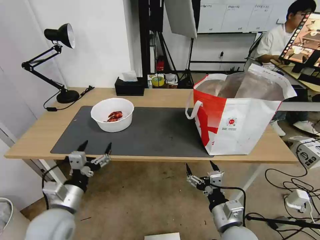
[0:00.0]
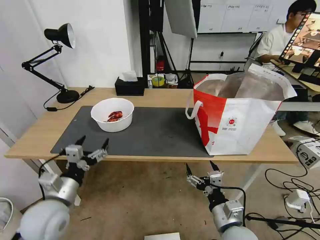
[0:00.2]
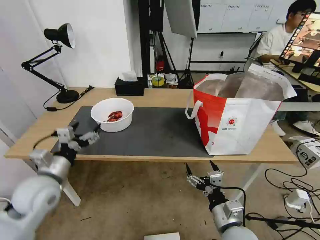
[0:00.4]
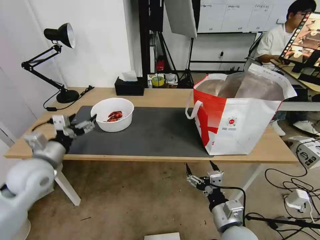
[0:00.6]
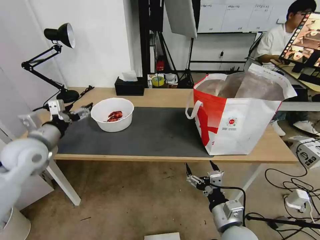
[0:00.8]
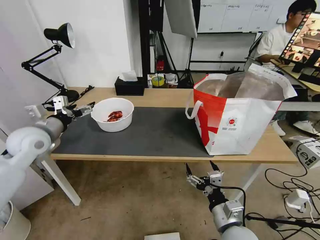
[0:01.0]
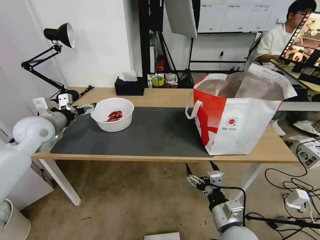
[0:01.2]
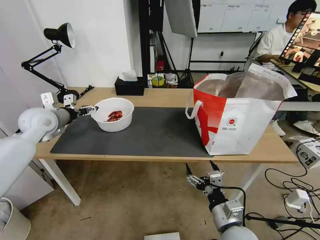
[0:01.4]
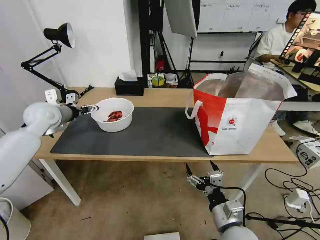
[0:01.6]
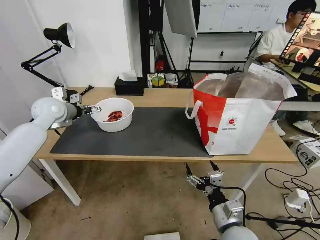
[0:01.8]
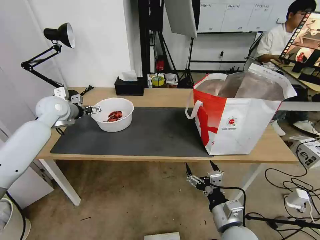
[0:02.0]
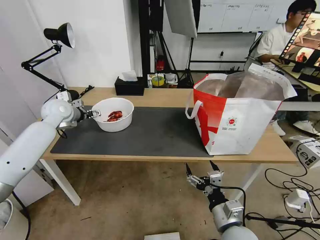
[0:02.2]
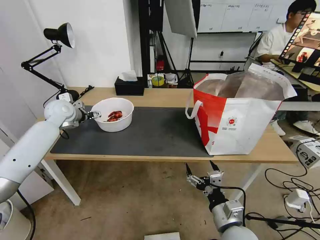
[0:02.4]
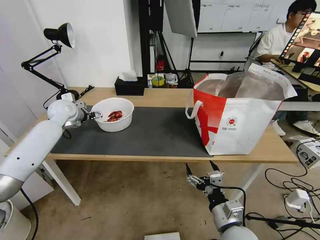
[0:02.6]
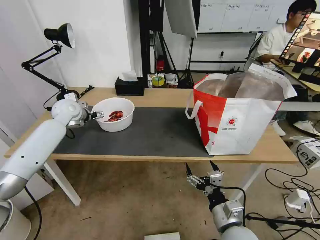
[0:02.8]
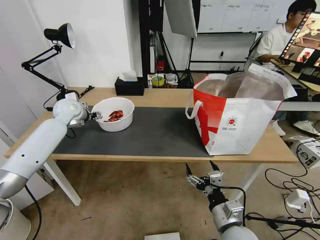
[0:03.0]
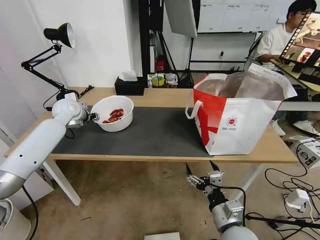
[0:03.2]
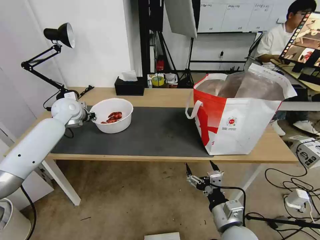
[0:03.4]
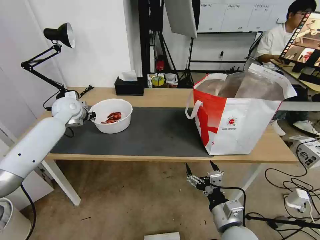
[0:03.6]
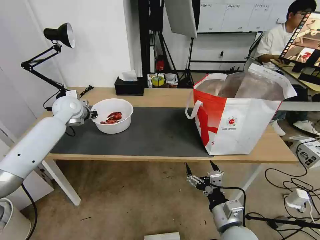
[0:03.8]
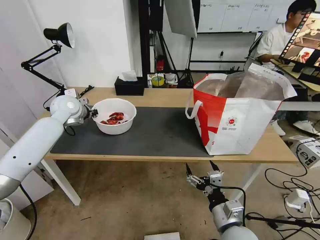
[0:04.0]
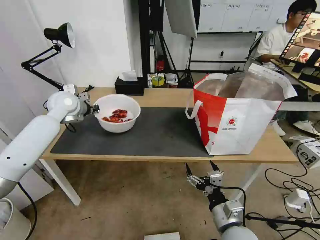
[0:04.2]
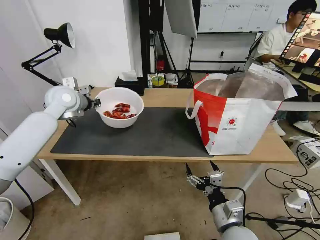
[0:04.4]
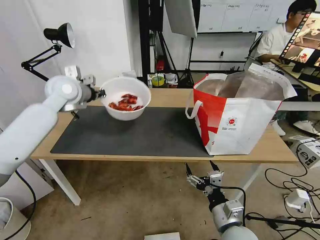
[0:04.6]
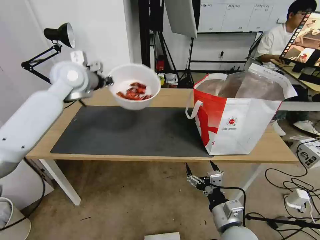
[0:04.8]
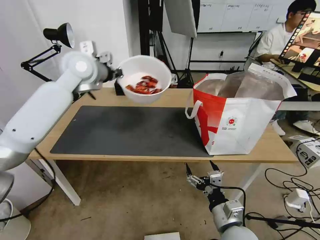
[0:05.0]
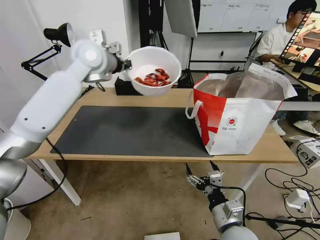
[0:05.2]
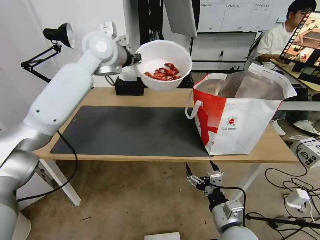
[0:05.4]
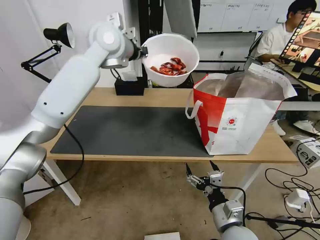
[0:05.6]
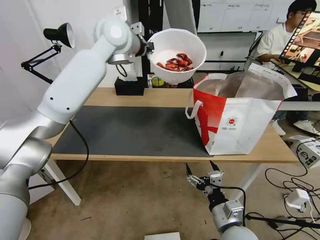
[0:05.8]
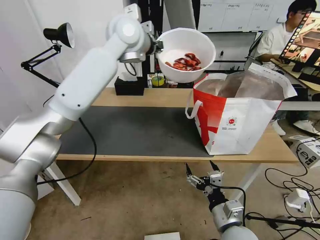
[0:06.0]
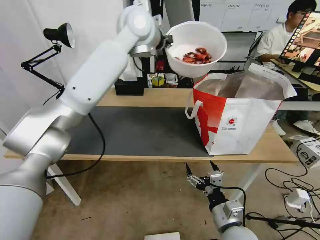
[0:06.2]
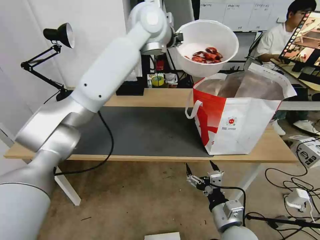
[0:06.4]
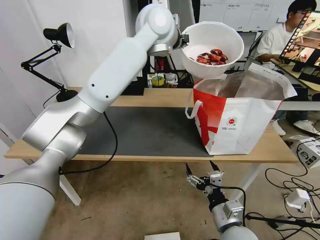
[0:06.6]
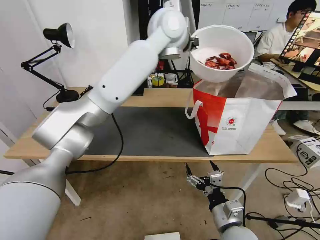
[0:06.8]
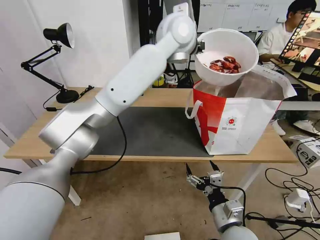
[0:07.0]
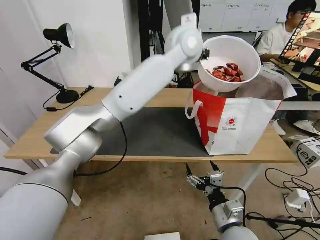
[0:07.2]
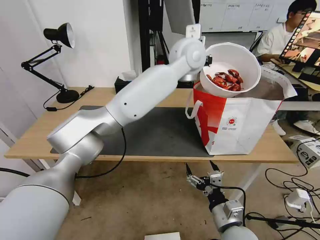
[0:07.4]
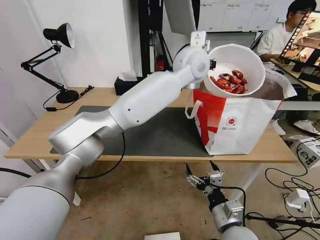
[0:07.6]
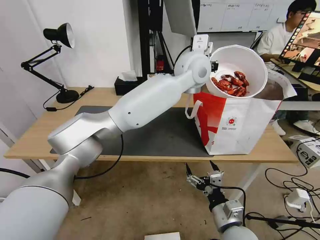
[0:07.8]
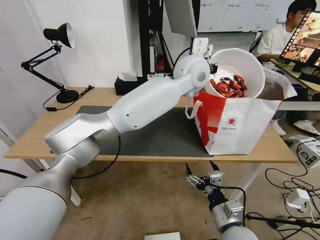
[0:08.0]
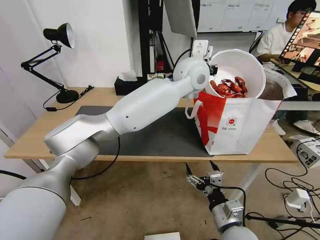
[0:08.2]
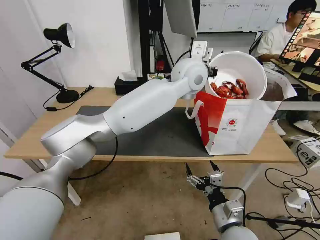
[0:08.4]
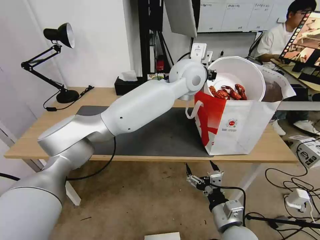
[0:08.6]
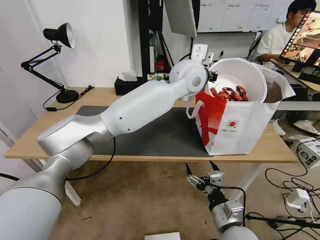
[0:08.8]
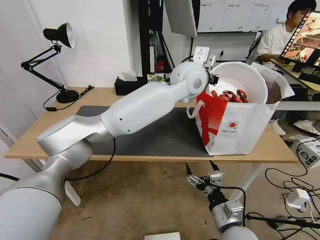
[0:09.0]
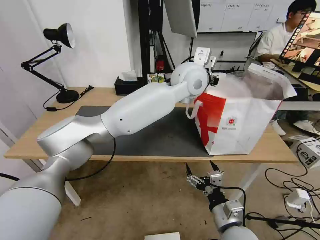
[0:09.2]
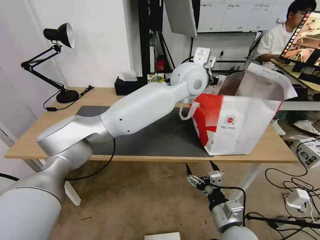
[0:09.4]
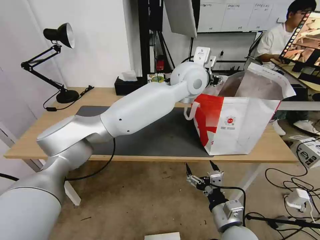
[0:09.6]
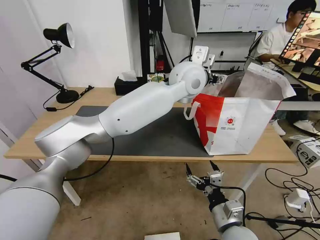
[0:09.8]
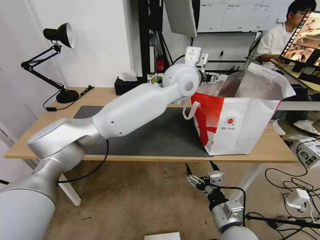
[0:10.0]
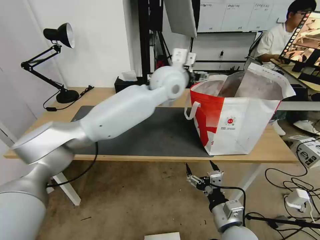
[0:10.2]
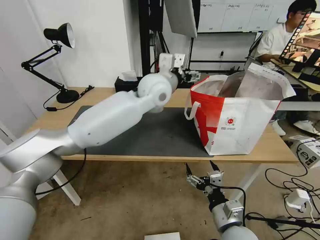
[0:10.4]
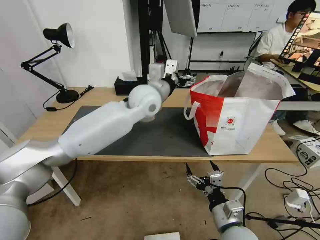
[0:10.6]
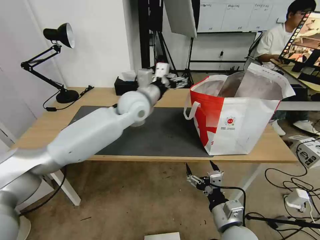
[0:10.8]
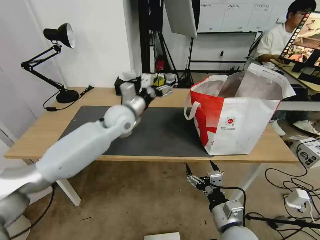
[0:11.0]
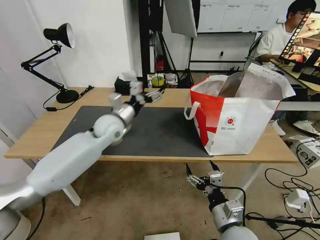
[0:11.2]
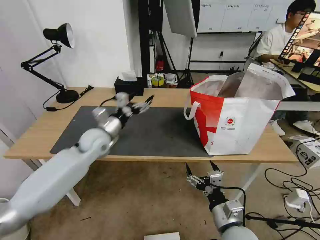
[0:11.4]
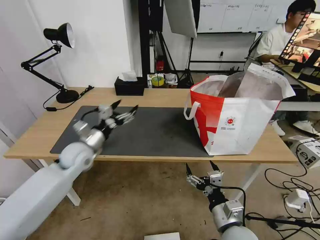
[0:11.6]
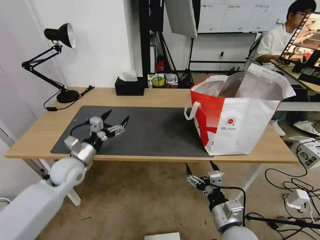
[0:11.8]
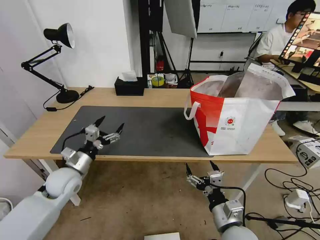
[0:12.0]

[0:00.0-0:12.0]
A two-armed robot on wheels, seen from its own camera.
Task of the whole recording: Pick up the trash from the table and place it into the takeout bag.
0:00.0 to 0:01.6: The left gripper shifts approximately 30 cm forward and upward.
0:01.6 to 0:03.0: The left gripper shifts some 5 cm forward.
0:03.0 to 0:04.4: The left gripper goes roughly 5 cm upward, and closes its fingers.
0:04.4 to 0:06.0: The left gripper heads to the right and upward, covering some 30 cm.
0:06.0 to 0:07.6: The left gripper goes about 20 cm to the right.
0:07.6 to 0:09.0: The grippers stay close to where they were, moving slightly.
0:09.0 to 0:10.4: The left gripper goes some 10 cm to the left, and opens its fingers.
0:10.4 to 0:12.0: The left gripper moves to the left, downward and backward, some 40 cm.

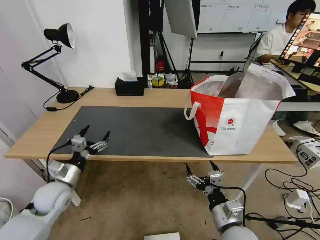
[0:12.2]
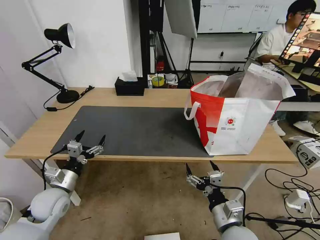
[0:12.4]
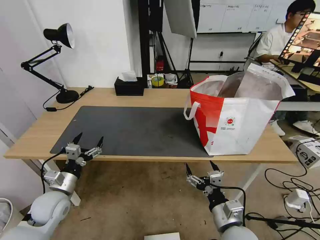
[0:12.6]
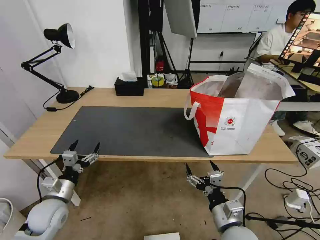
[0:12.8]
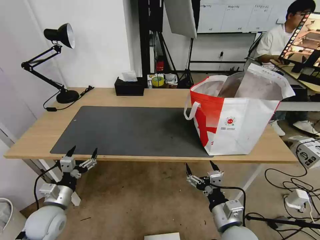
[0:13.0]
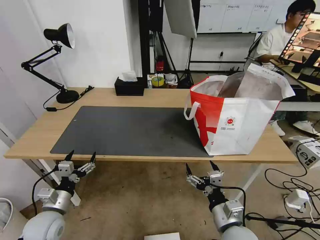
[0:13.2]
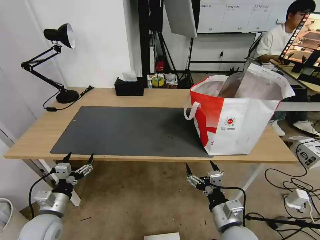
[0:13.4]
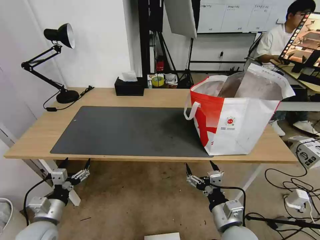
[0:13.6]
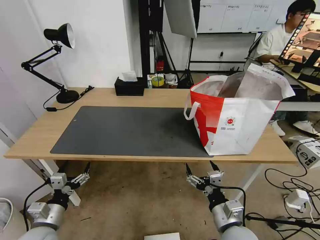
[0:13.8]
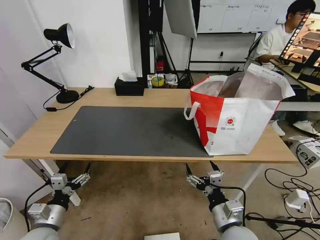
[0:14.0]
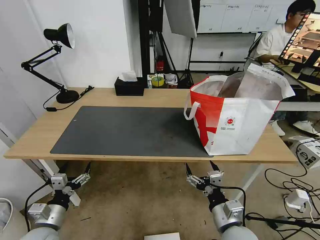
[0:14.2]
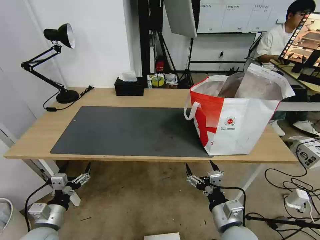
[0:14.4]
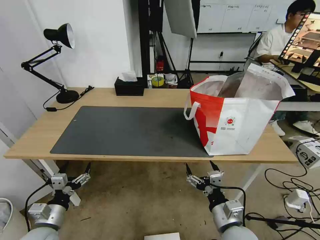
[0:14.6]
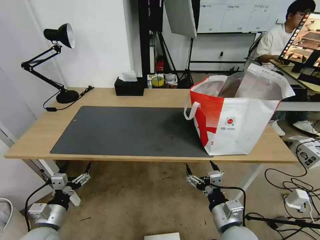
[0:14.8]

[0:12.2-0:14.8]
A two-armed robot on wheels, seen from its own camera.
Task of the whole recording: Pick up the trash from the table and place it into the takeout bag.
0:12.2 to 0:13.4: The left gripper moves backward, approximately 10 cm.
0:13.4 to 0:14.8: The grippers make only small movements.

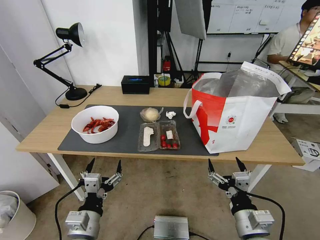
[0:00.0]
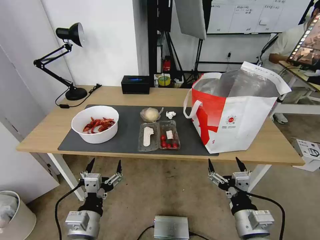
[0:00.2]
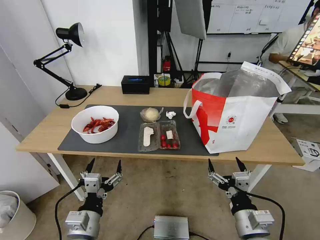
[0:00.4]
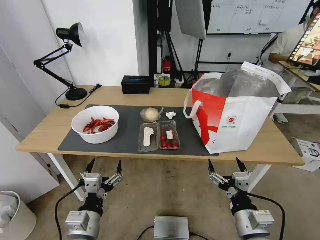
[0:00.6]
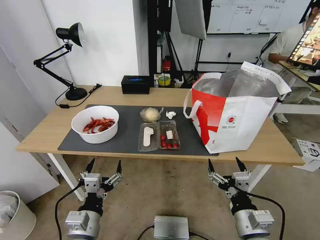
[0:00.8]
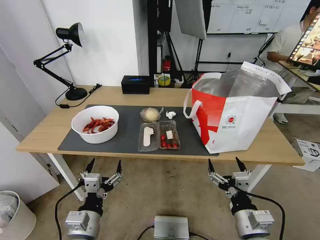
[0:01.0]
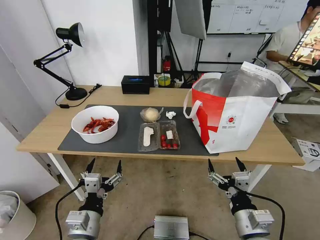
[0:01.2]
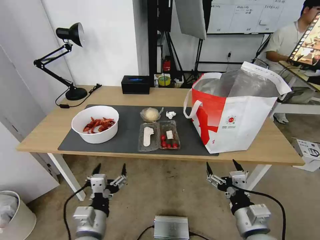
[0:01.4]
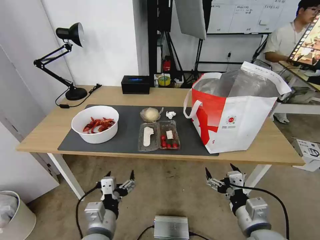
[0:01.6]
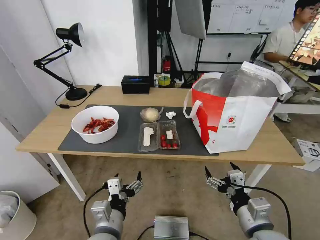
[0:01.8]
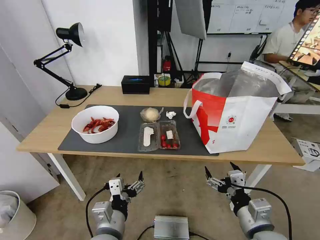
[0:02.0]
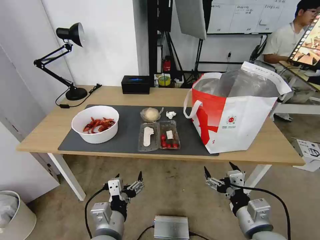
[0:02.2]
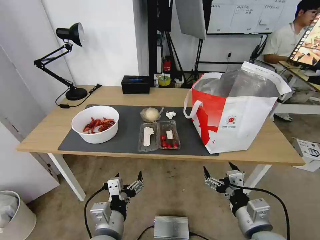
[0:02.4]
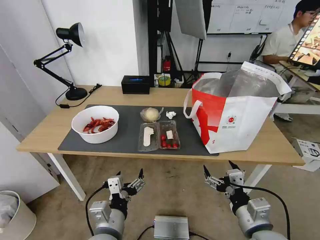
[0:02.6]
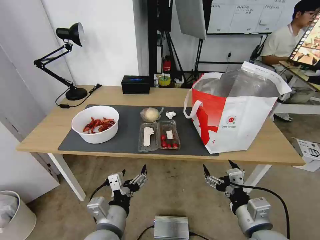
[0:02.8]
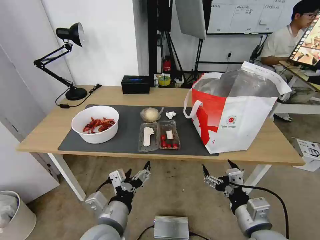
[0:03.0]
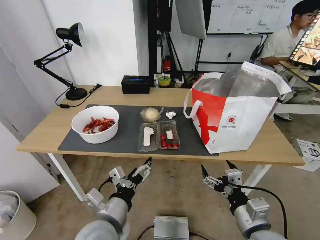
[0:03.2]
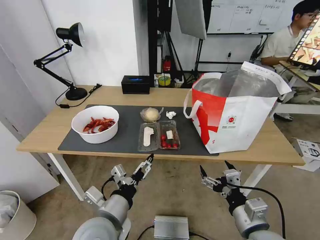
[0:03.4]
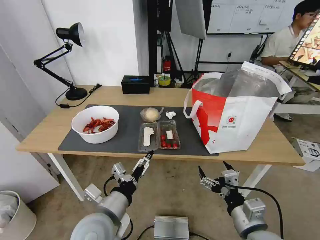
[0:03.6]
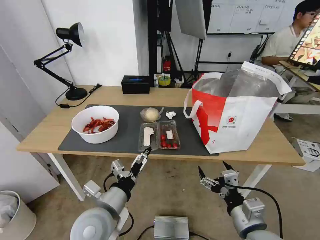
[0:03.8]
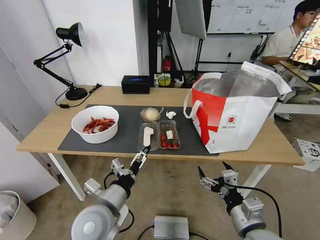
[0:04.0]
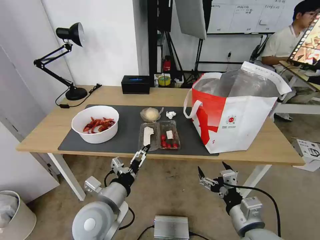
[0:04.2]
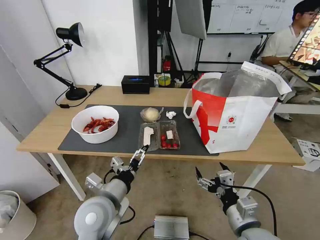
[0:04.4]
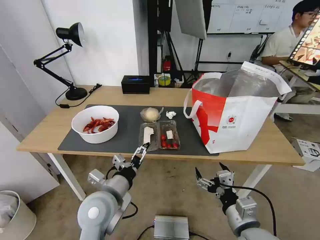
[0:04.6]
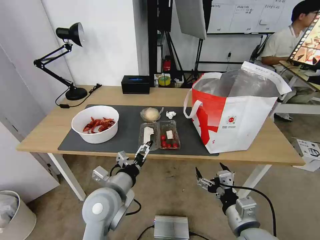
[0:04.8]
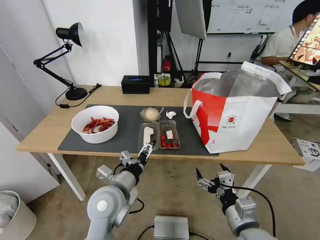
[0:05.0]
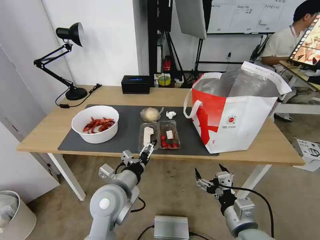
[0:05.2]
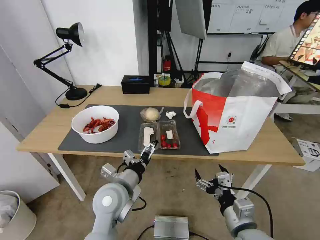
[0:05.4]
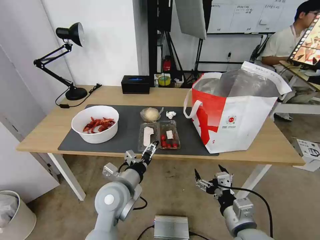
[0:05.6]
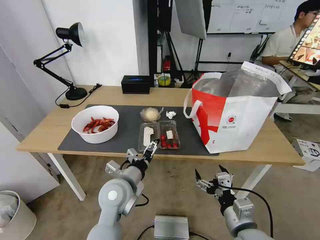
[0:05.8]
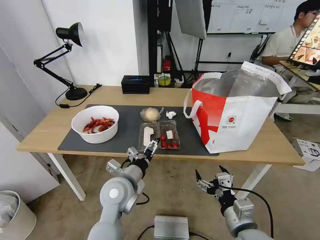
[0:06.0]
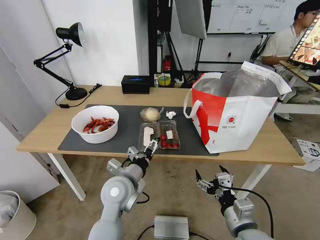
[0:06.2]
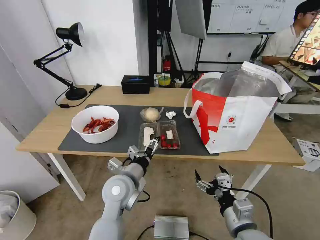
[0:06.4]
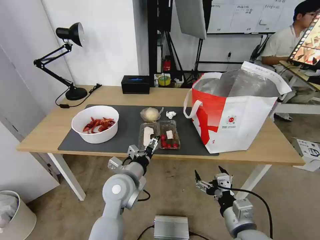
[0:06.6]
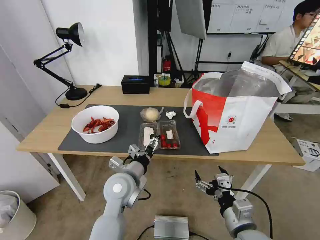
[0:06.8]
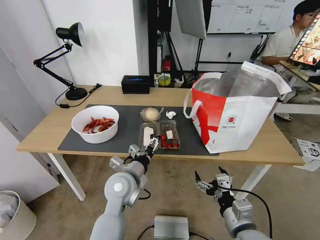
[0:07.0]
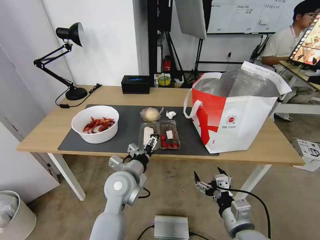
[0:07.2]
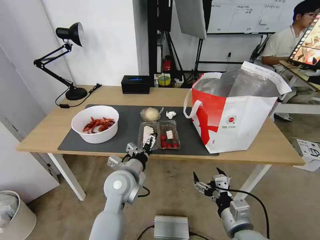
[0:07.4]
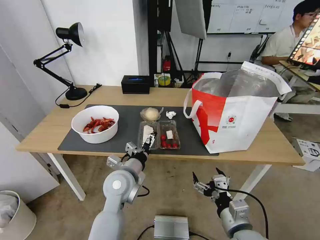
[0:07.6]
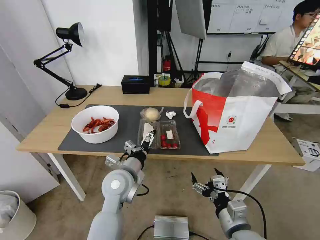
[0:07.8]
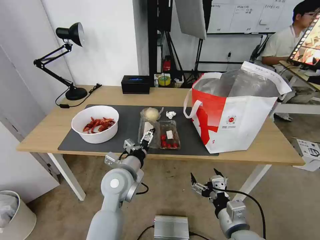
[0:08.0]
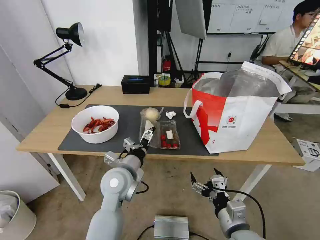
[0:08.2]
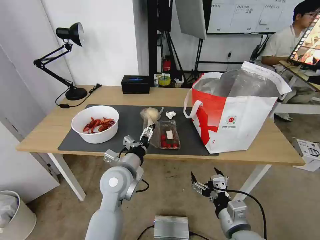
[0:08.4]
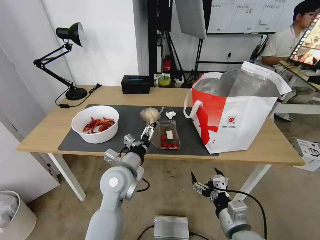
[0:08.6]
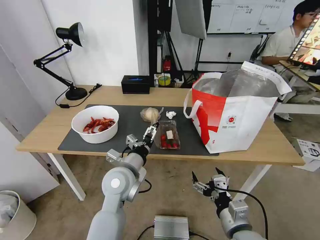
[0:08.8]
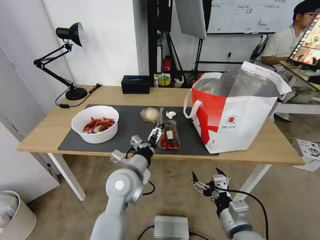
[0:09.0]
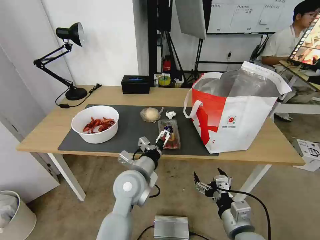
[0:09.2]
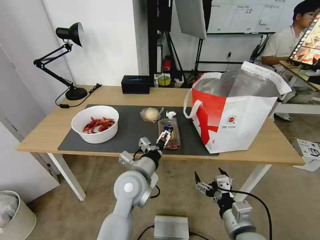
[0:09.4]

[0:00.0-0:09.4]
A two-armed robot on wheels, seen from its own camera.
Task of the whole recording: Pick up the trash from the table and place it into the takeout bag.
0:01.6 to 0:03.2: The left gripper goes roughly 5 cm upward.
0:03.2 to 0:04.8: The left gripper moves forward, approximately 10 cm.
0:04.8 to 0:06.2: The left gripper ends up roughly 5 cm from where it was.
0:06.2 to 0:09.4: The grippers move only a little.
